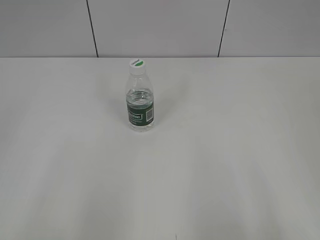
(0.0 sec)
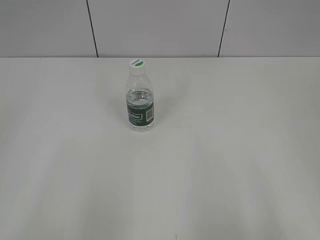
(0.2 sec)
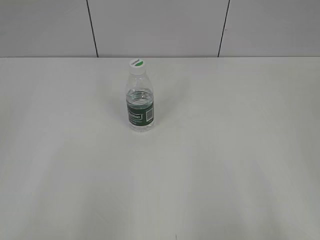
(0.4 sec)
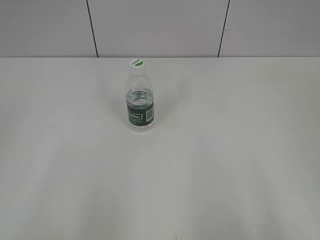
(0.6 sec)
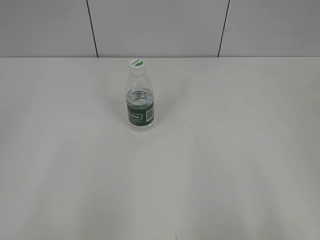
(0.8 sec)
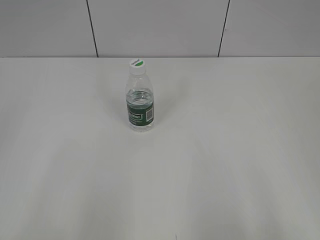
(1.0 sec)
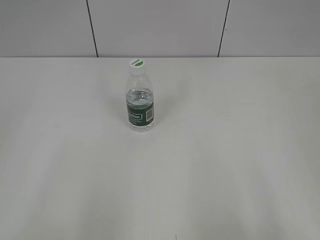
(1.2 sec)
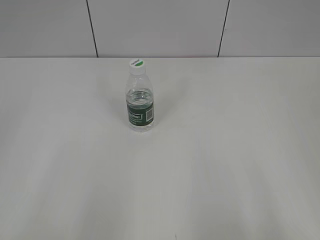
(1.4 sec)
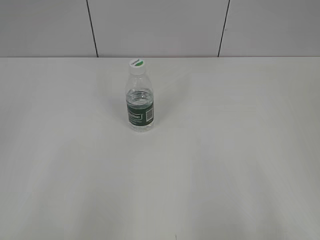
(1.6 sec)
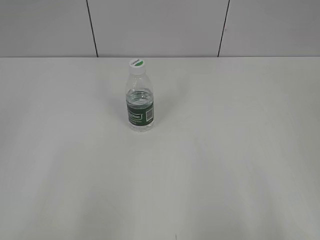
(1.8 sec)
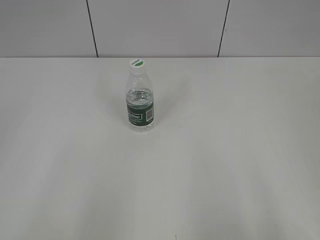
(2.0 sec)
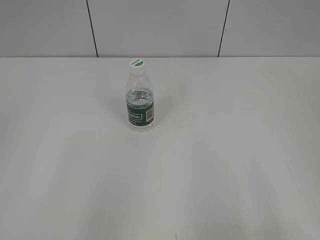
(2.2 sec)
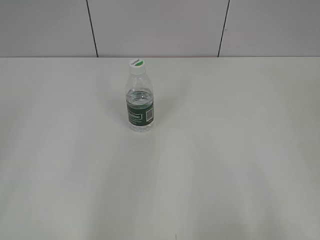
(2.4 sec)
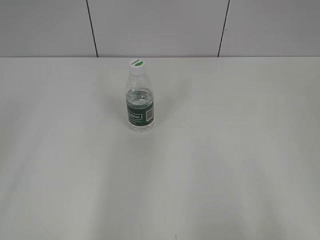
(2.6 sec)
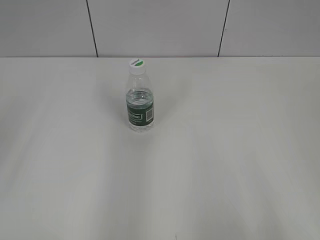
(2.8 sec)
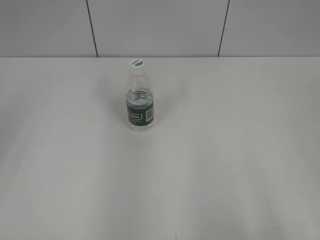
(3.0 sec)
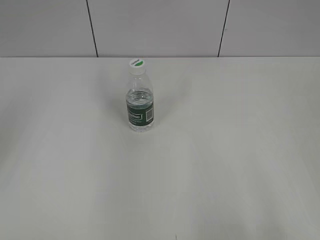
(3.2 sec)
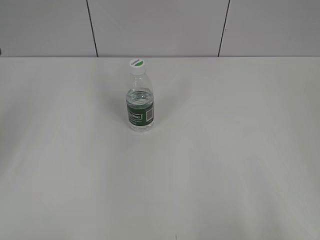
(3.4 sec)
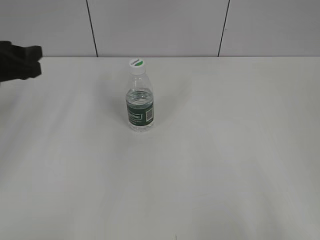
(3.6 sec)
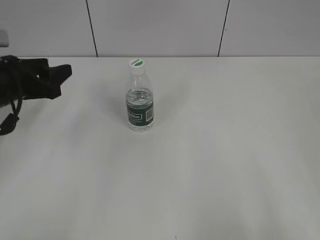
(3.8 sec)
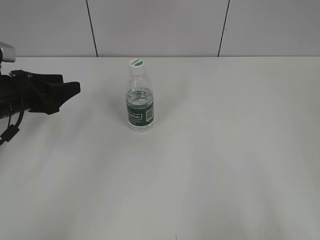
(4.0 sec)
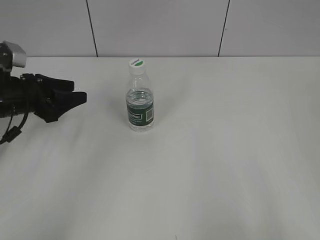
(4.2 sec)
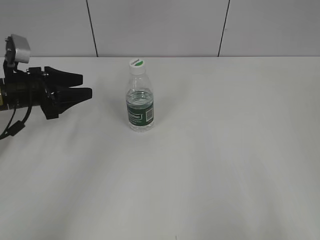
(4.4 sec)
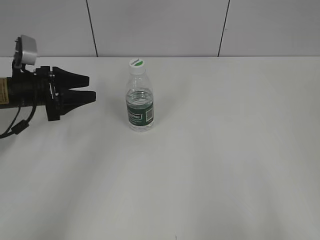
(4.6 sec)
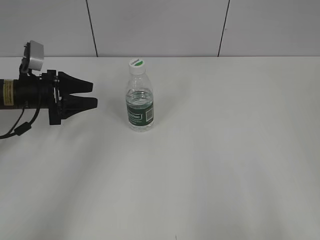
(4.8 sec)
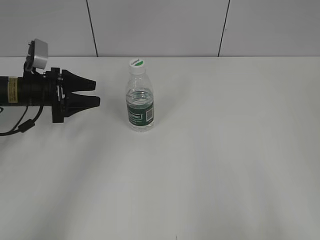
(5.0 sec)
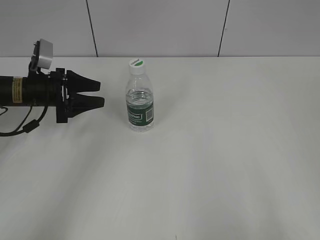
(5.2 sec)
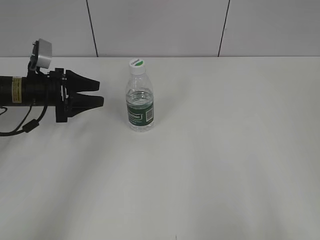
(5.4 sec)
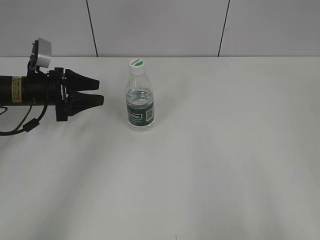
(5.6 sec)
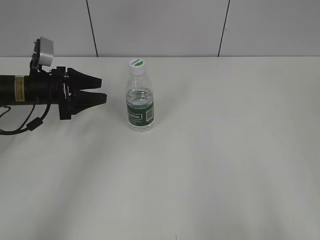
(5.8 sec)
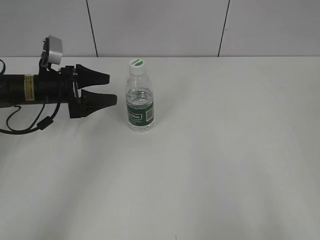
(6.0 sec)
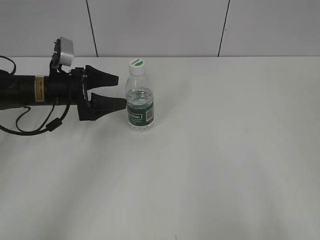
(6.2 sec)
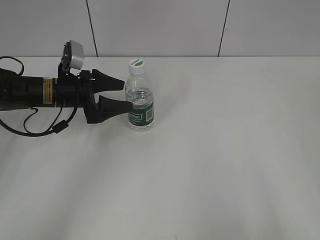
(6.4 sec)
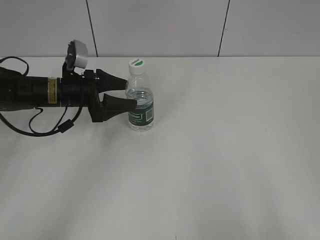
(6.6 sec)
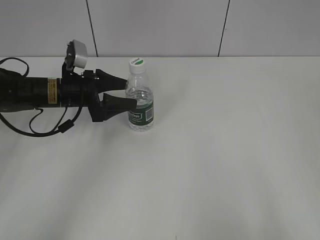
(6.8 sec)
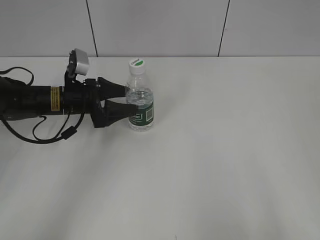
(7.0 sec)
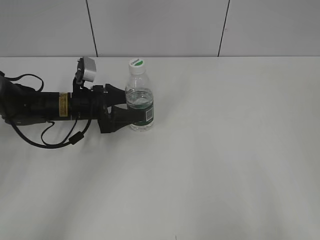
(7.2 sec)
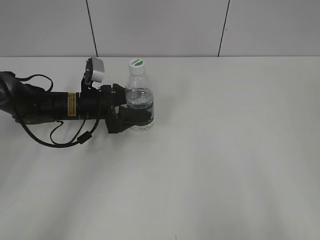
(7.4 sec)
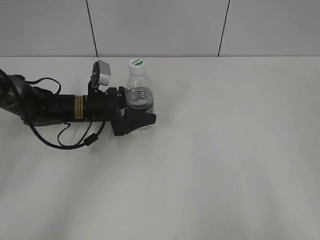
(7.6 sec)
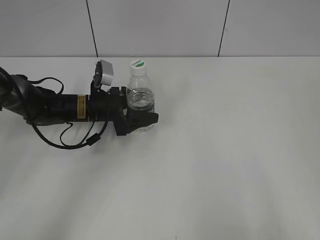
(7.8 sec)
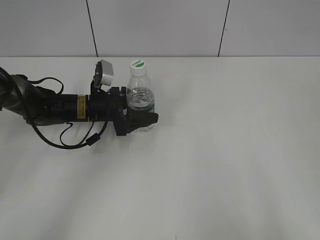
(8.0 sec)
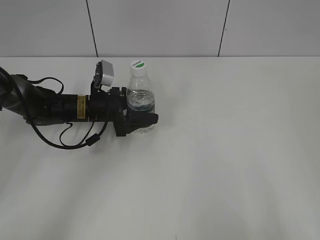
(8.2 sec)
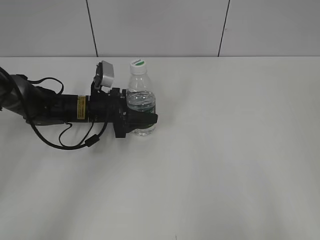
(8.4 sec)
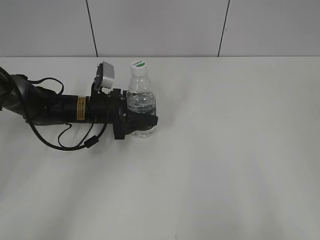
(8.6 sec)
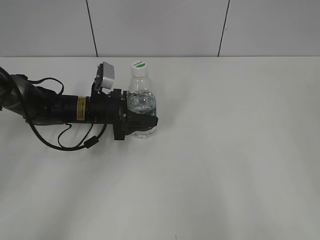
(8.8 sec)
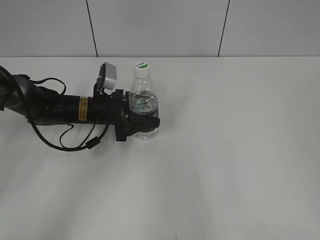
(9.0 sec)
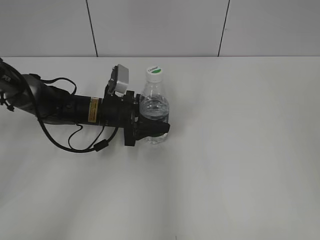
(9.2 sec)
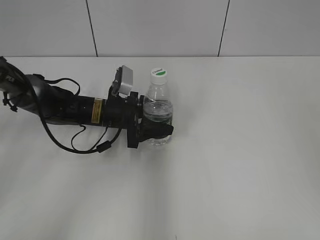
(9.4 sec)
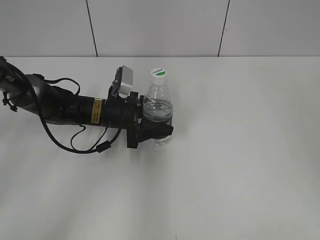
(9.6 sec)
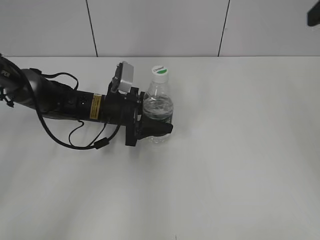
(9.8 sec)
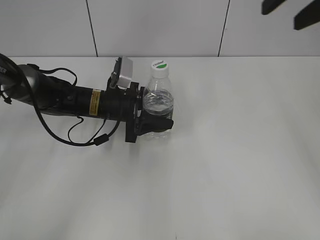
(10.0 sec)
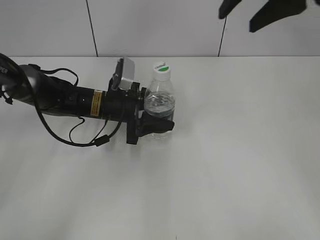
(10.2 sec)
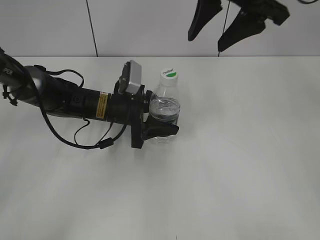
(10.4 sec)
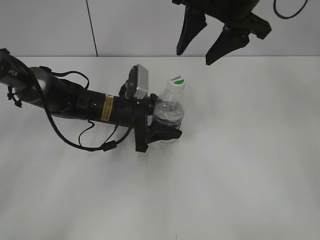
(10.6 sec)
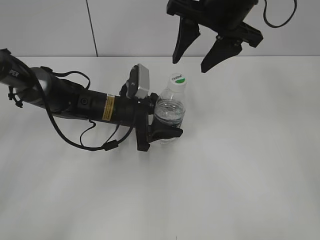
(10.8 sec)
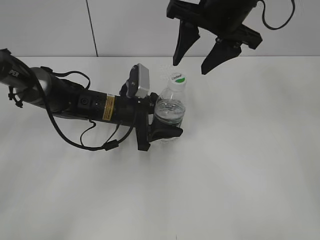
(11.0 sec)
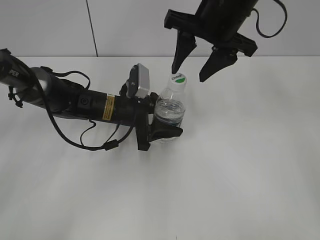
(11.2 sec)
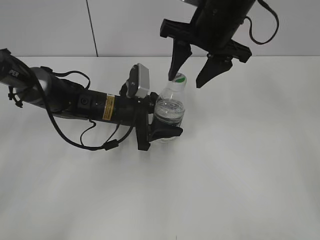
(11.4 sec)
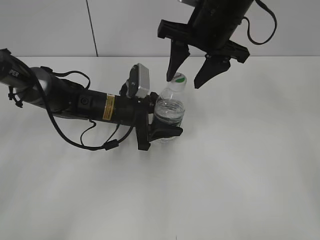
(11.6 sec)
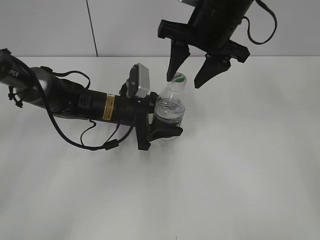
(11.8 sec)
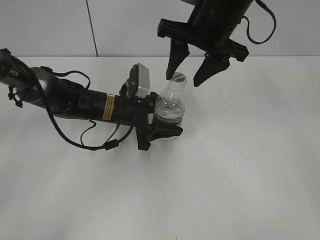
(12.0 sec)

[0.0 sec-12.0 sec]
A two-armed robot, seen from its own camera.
Step, 0.0 sec to 8.4 sec: Grasp the bottle and move it to the center of the table with the left gripper.
3.0 sec to 4.4 sec: The left gripper travels downward and forward by some 25 cm, and closes.
4.4 sec to 6.0 sec: The left gripper changes place by approximately 5 cm, and opens its fingers.
6.0 sec to 7.6 sec: The left gripper shifts some 10 cm to the right and downward.
7.6 sec to 9.0 sec: The right gripper moves forward, about 5 cm. The left gripper closes up.
9.0 sec to 10.4 sec: The right gripper travels forward and to the left by roughly 35 cm.
10.4 sec to 12.0 sec: The right gripper travels downward by about 5 cm.

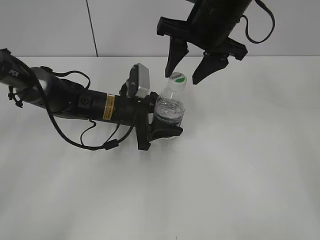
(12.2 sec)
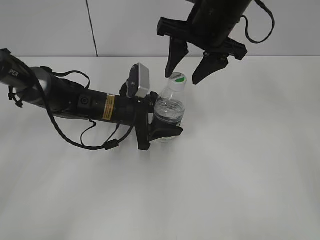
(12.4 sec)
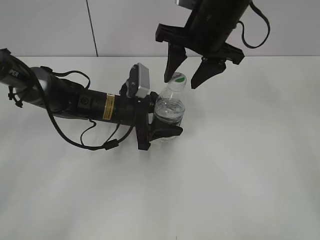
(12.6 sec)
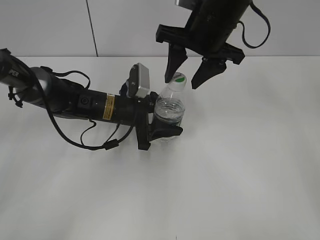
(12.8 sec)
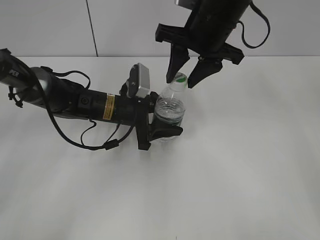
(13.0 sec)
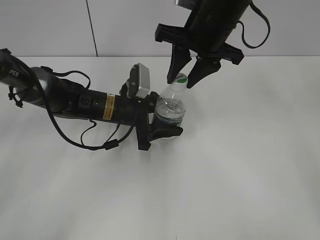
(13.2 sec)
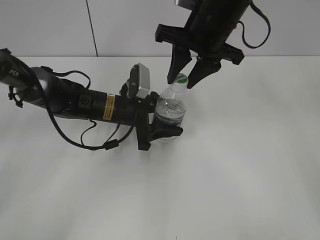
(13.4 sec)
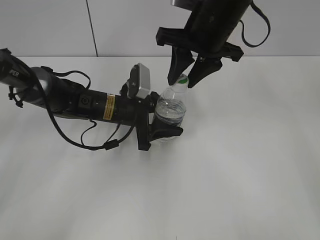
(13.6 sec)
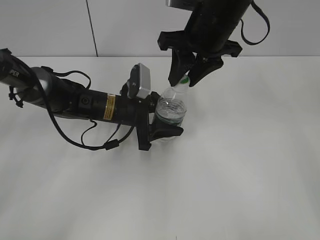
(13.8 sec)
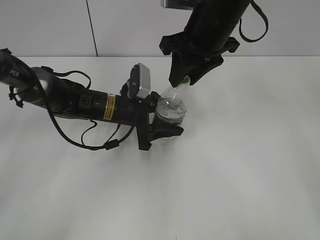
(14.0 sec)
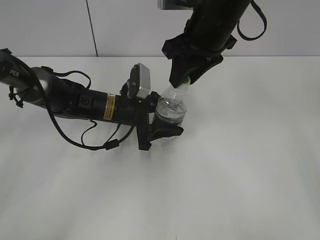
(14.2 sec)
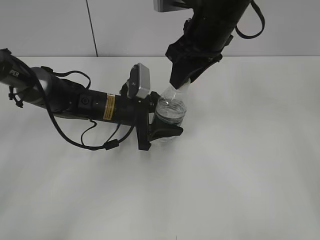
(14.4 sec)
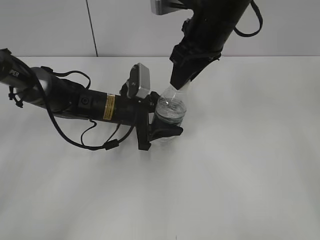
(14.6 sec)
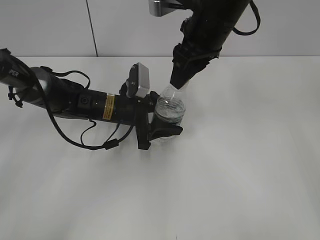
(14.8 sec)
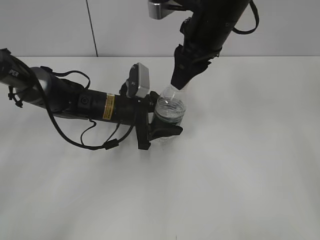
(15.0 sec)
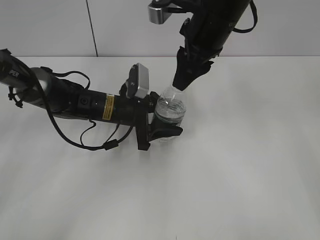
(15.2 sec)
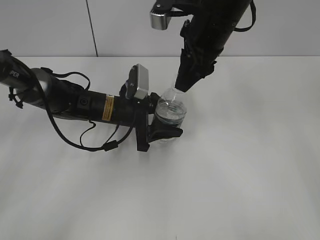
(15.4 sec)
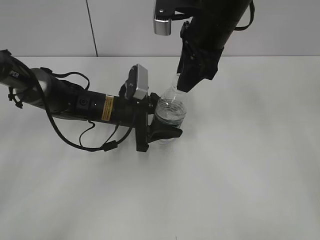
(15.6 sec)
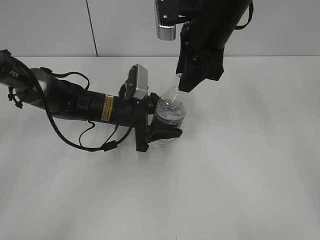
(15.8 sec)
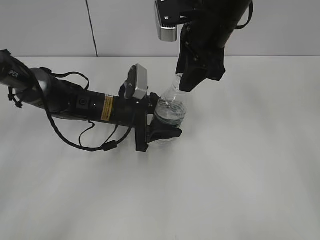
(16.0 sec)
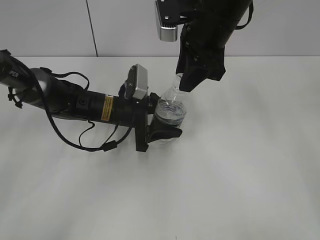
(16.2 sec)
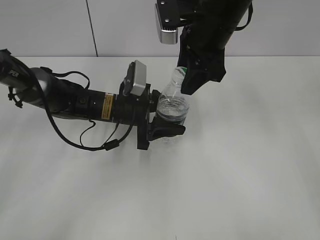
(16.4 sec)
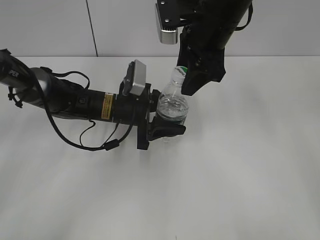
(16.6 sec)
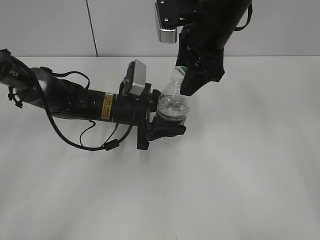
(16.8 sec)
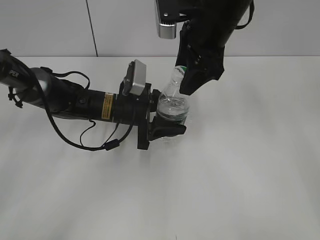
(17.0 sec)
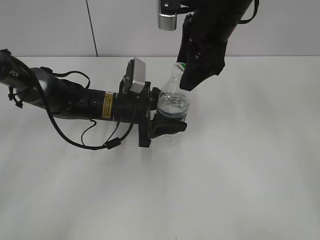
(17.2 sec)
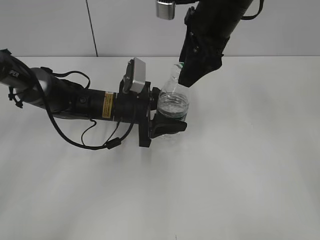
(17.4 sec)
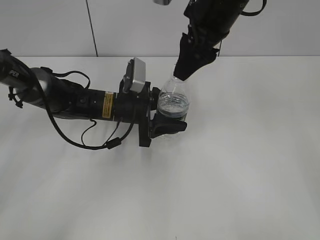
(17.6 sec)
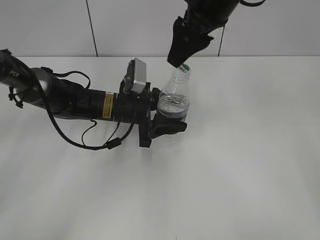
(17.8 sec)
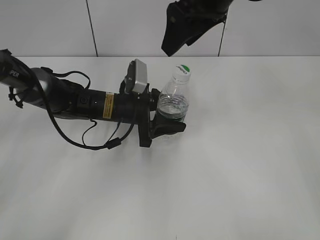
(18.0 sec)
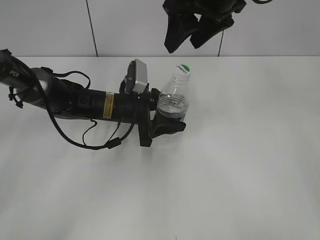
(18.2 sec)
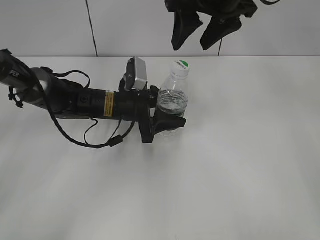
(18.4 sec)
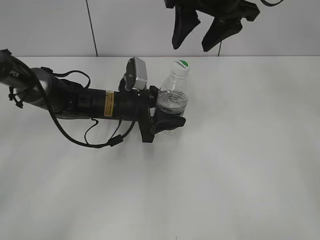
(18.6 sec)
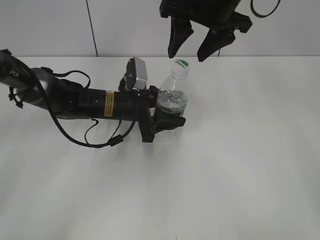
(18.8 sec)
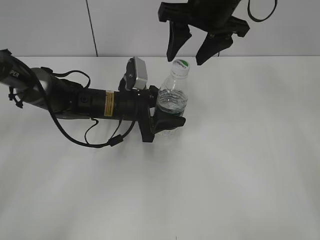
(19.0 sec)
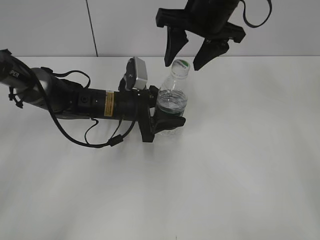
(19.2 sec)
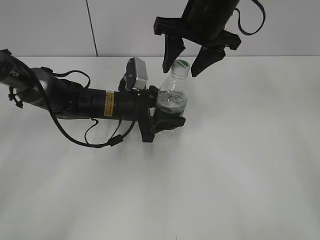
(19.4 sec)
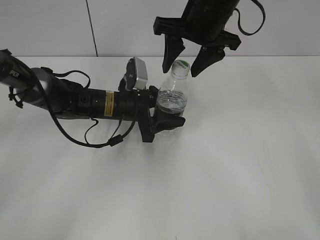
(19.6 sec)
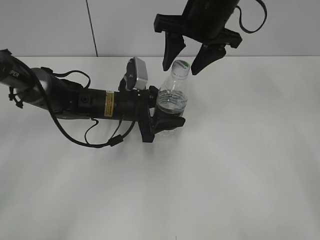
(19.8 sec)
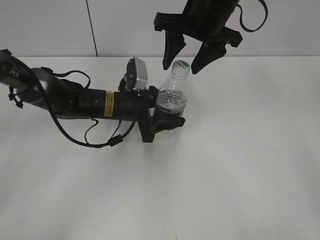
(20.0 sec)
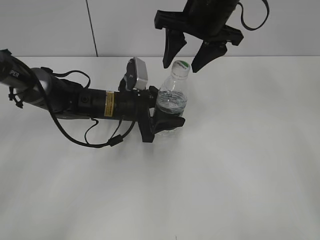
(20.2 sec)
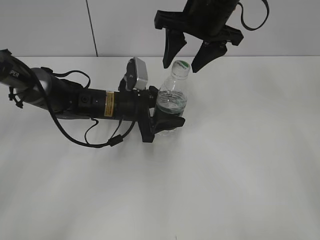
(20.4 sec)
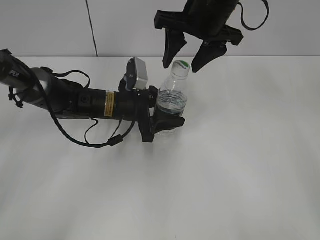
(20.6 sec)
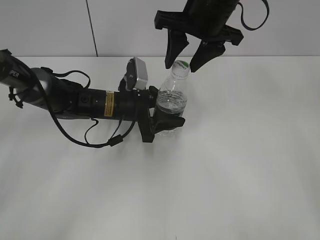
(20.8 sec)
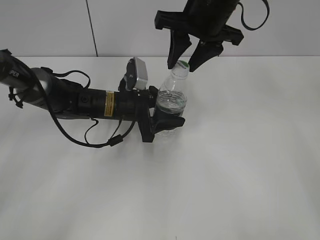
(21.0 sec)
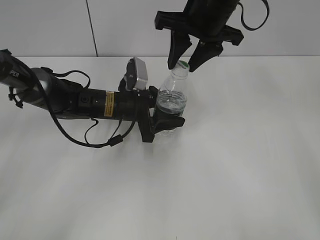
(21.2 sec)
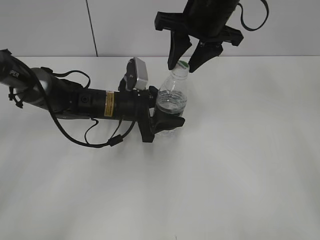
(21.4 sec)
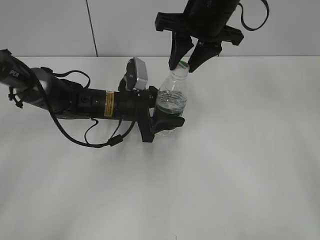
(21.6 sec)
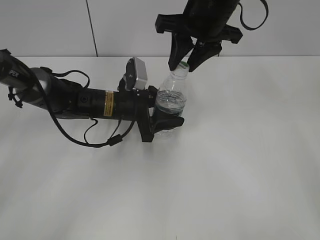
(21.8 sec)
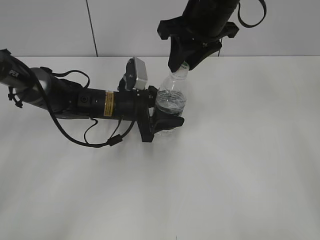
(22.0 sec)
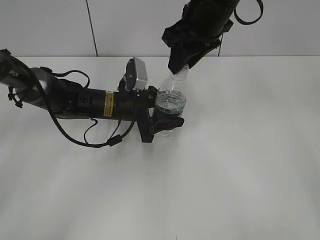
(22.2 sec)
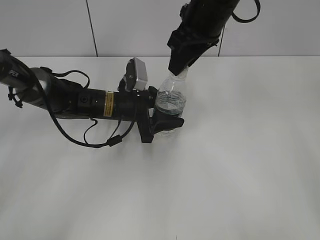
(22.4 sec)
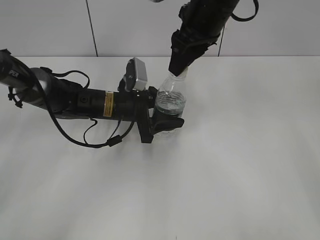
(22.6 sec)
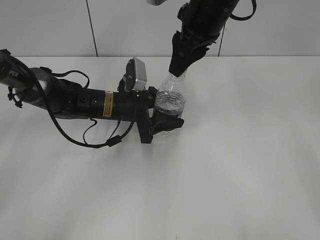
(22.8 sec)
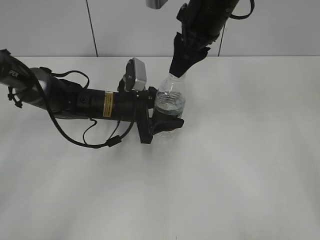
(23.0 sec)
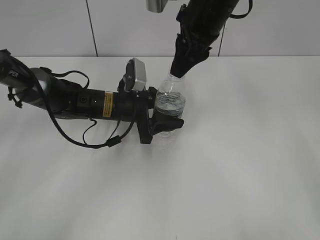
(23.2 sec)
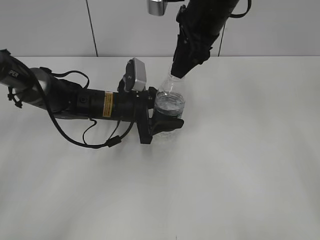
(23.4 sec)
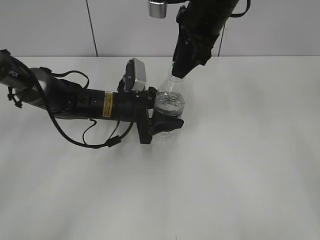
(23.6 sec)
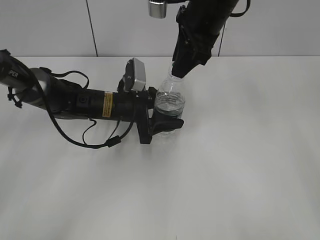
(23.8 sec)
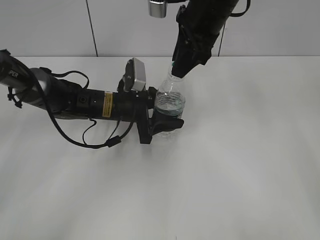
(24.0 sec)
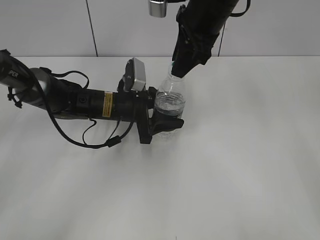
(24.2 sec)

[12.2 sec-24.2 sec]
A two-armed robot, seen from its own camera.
12.2 sec to 13.8 sec: The right gripper closes its fingers.
15.2 sec to 16.6 sec: The right gripper opens its fingers.
16.6 sec to 18.2 sec: The right gripper heads upward, covering about 5 cm.
19.8 sec to 21.2 sec: The right gripper closes up.
